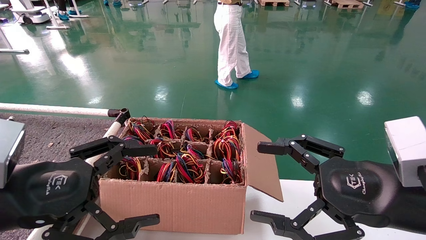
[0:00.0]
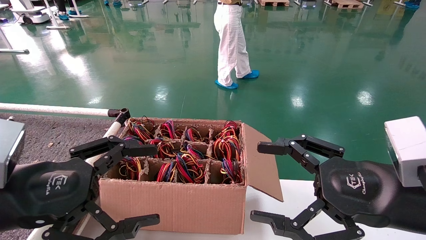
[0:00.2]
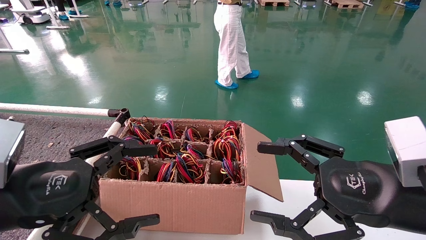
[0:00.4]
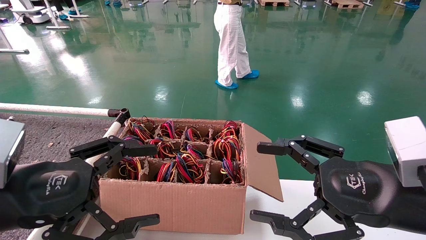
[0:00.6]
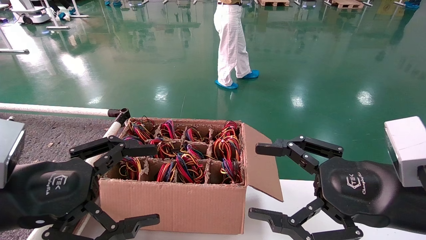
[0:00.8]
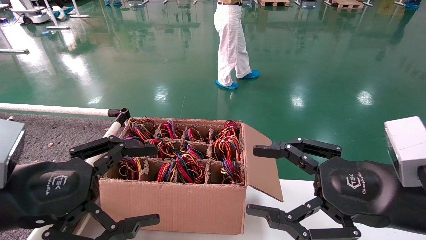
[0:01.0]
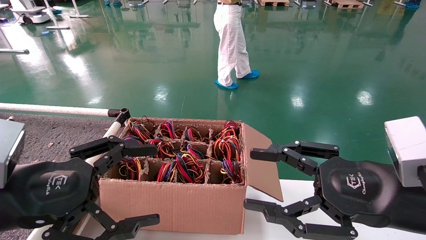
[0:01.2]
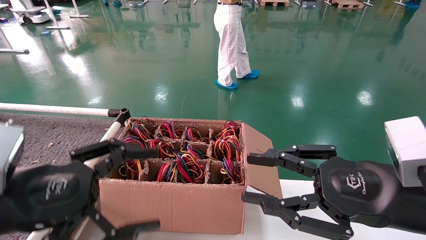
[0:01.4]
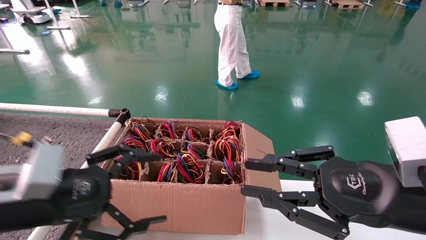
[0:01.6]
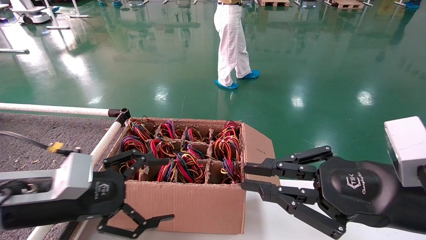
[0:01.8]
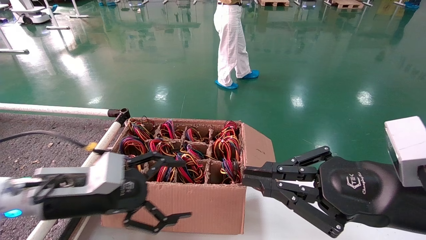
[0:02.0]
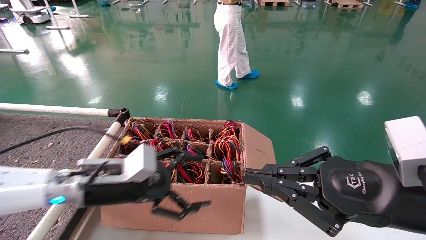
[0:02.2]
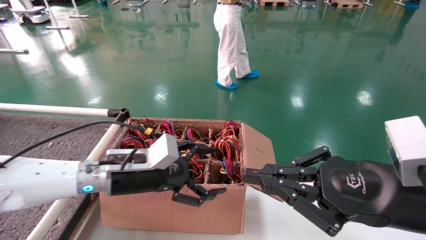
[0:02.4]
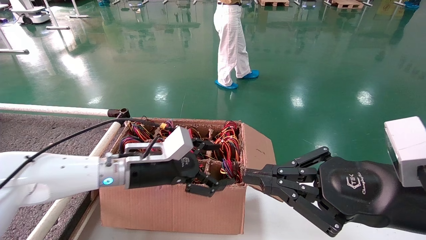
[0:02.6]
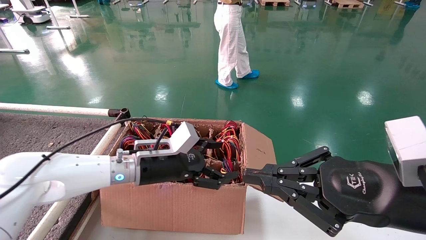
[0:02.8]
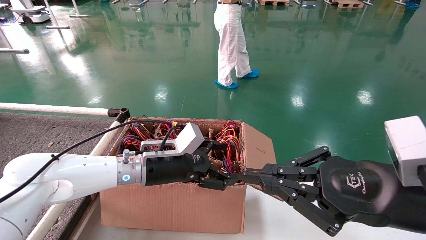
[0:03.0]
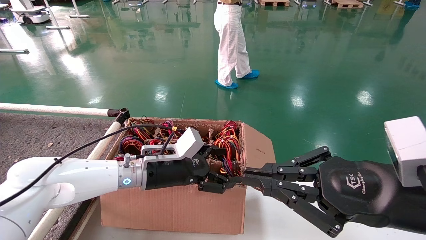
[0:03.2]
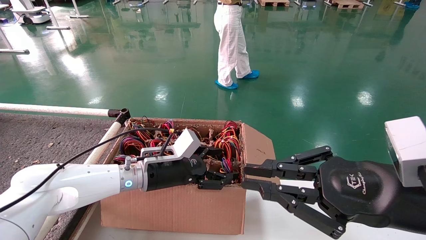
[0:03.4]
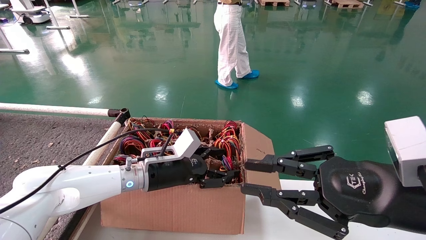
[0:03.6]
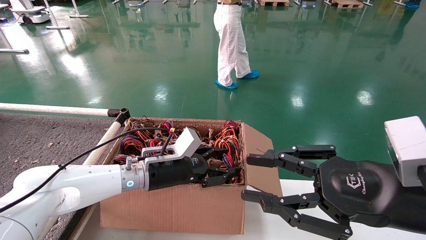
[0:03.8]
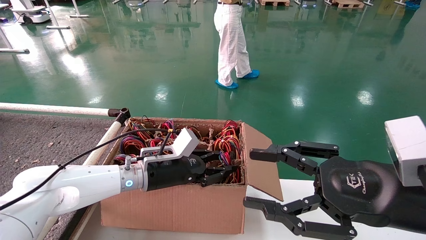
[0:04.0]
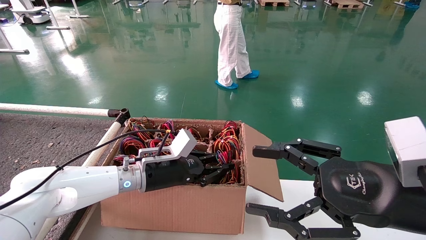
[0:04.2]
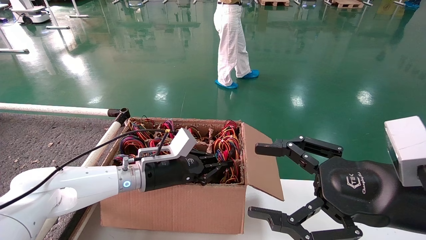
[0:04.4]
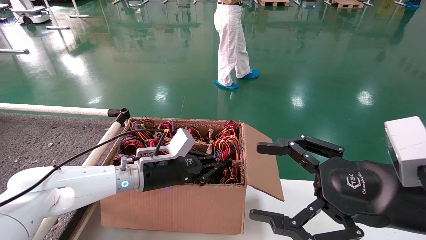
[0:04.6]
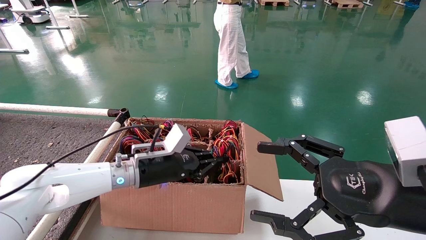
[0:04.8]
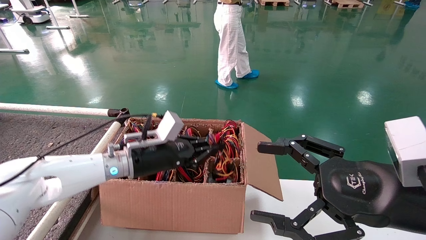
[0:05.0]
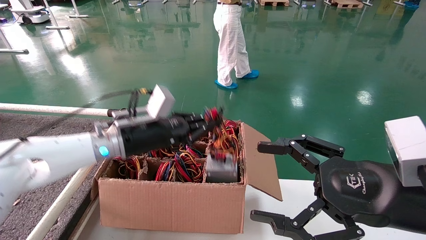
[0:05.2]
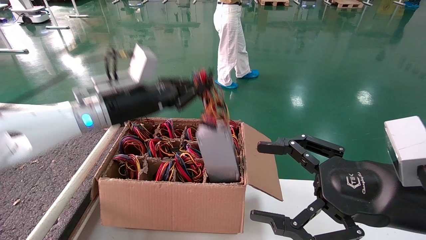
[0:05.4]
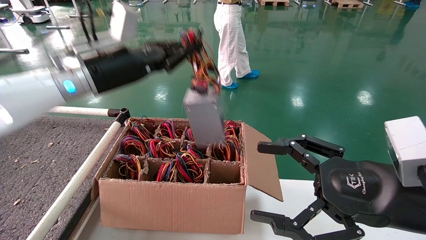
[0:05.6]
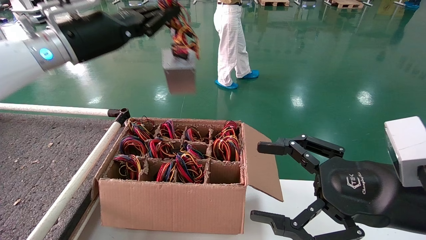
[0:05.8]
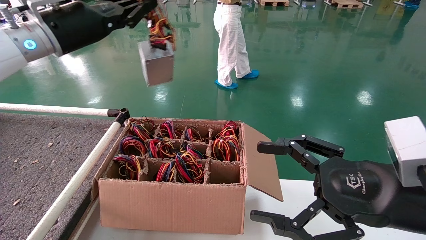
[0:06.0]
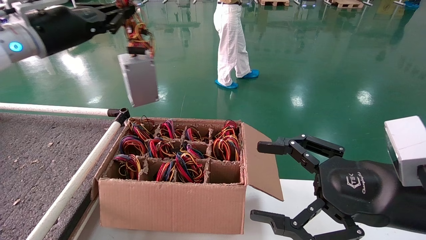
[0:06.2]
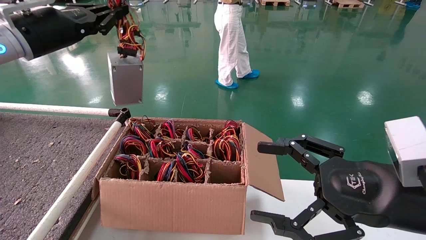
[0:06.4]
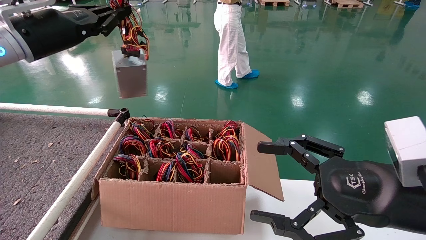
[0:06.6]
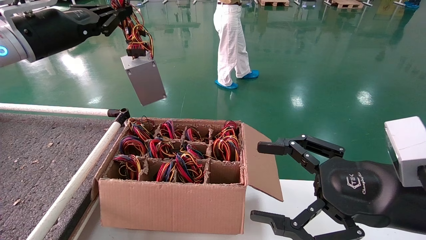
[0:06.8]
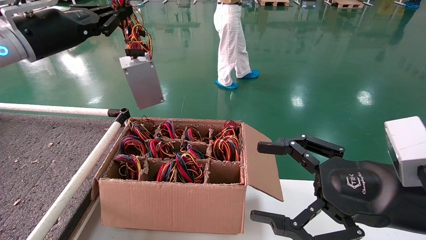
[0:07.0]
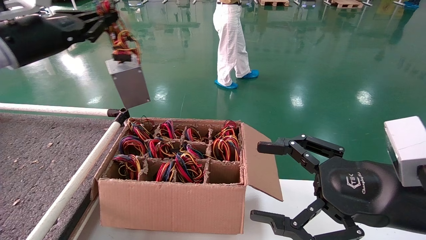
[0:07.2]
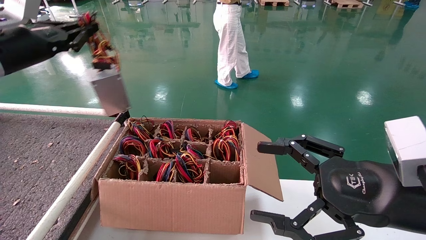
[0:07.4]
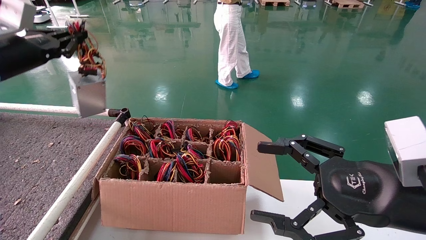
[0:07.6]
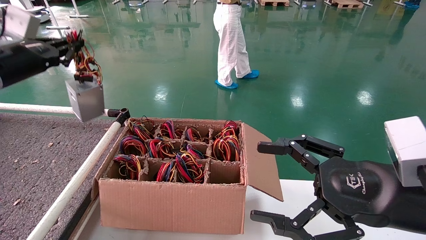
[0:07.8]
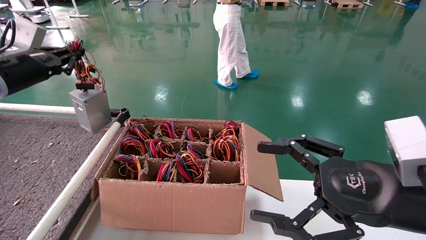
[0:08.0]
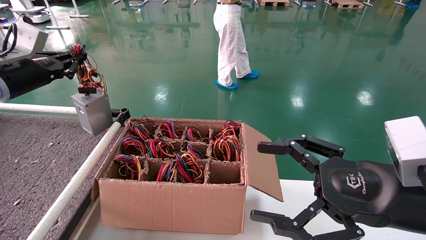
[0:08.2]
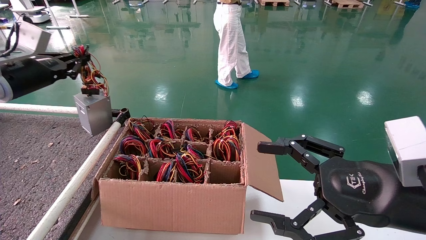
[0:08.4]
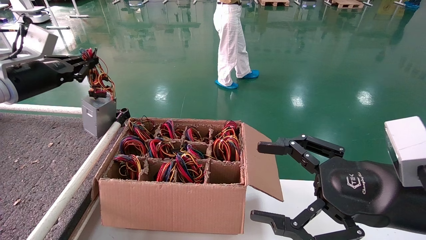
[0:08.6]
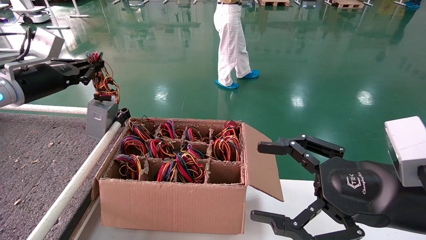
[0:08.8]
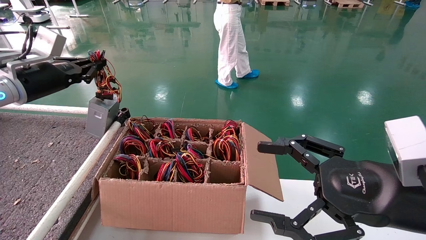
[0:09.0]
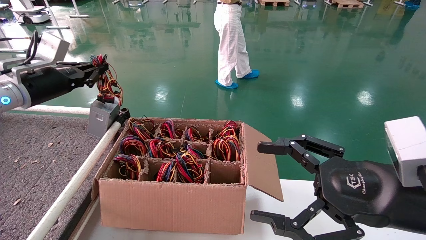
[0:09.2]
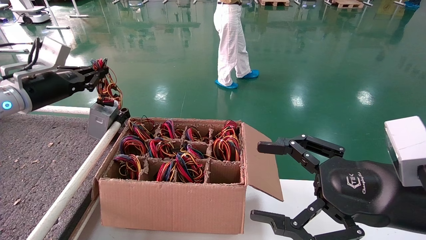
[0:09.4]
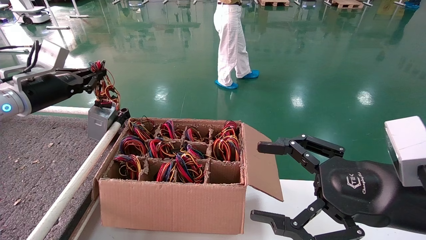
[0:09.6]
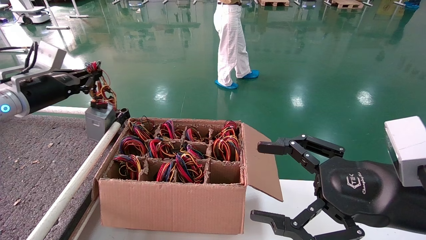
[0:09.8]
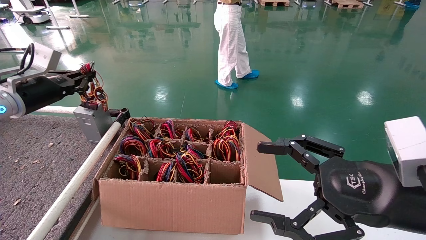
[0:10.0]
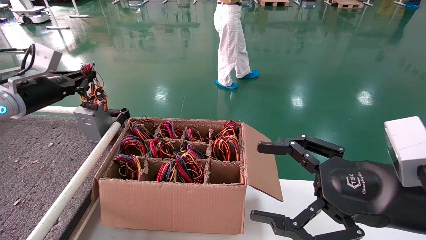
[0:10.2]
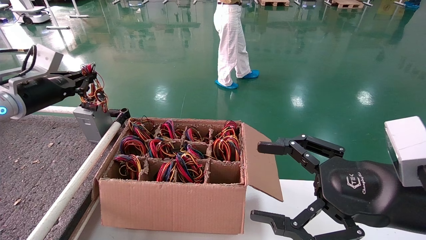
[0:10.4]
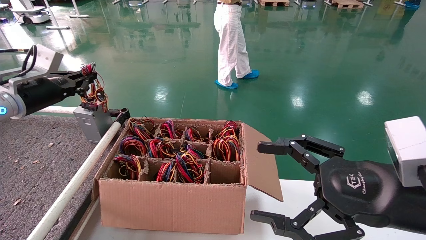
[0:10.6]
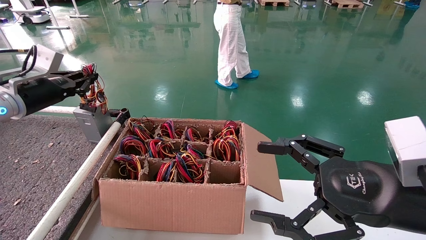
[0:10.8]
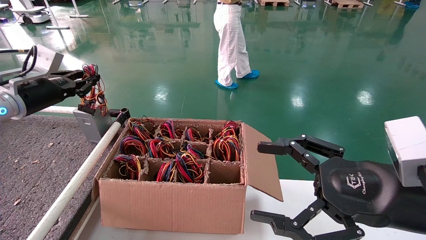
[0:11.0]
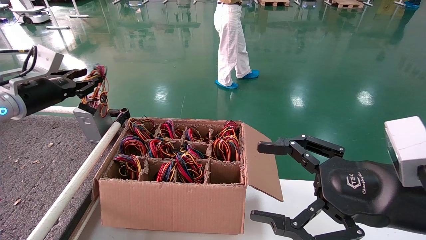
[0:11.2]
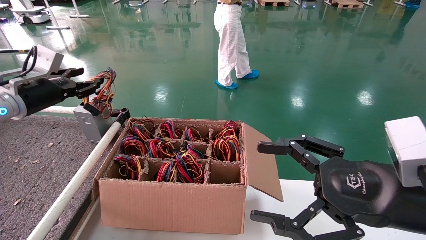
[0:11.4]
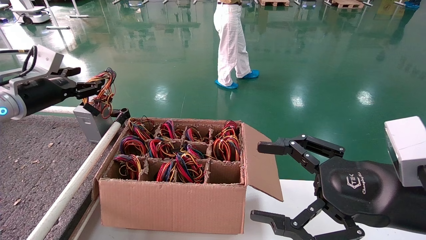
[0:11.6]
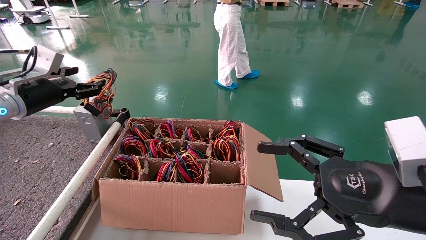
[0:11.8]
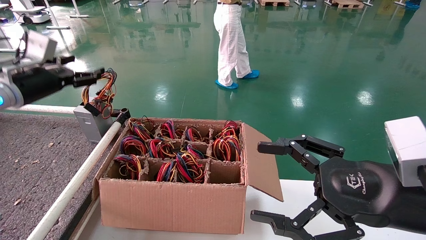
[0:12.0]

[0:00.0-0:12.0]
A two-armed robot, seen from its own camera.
Step, 0:01.8 to 0:04.8: Grab and lift the power supply from the large box.
Step, 0:05.0 to 0:11.6: Place the power supply on the operating table.
0:00.0 to 0:01.6: The right gripper closes up.
0:01.6 to 0:03.0: The left gripper goes roughly 20 cm forward and to the right. Meanwhile the right gripper closes its fingers.
0:03.0 to 0:04.4: The right gripper opens. Meanwhile the left gripper closes up.
0:04.4 to 0:06.0: The left gripper is displaced upward and to the left by about 30 cm.
0:06.0 to 0:07.6: The left gripper heads to the left, covering about 15 cm.
0:07.6 to 0:09.0: The left gripper ends up about 5 cm from where it was.
0:09.0 to 0:10.4: The grippers make only small movements.
0:10.4 to 0:12.0: The left gripper opens up.

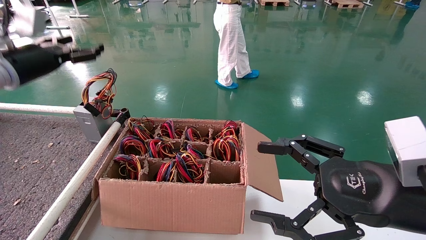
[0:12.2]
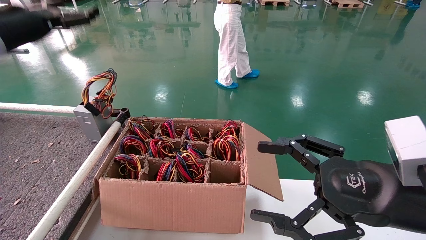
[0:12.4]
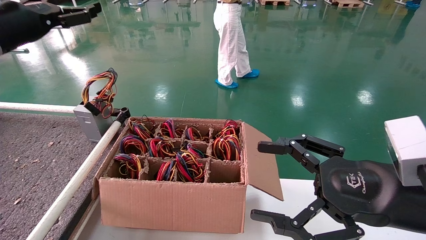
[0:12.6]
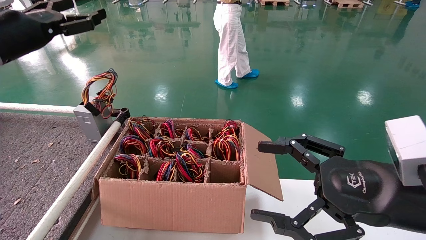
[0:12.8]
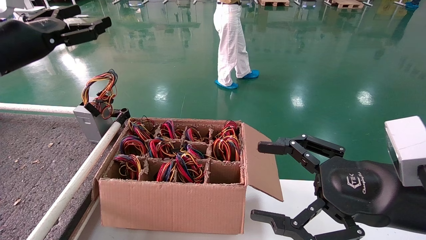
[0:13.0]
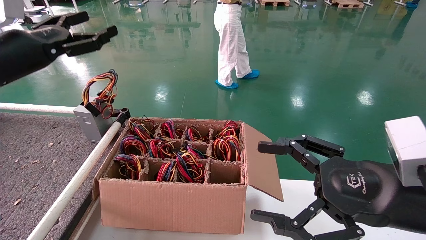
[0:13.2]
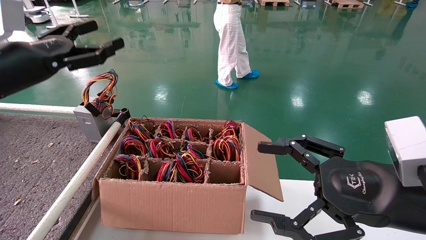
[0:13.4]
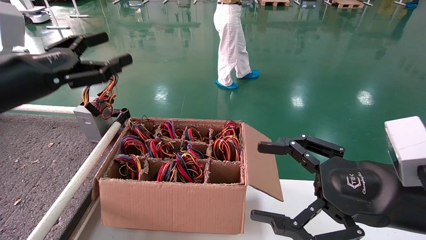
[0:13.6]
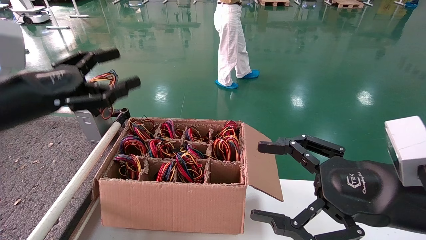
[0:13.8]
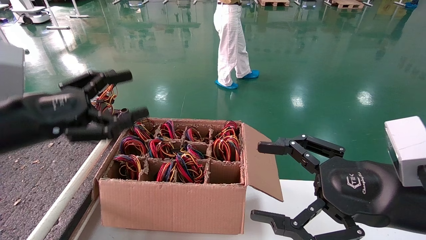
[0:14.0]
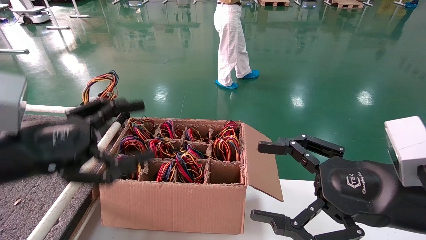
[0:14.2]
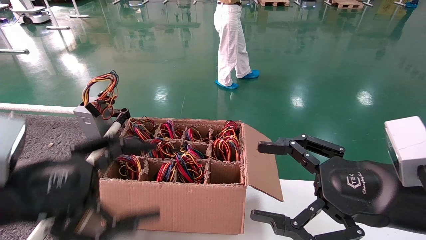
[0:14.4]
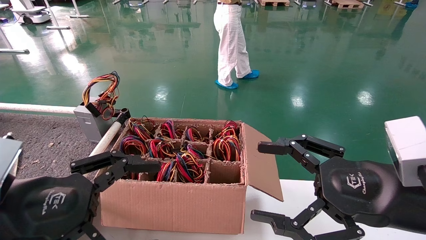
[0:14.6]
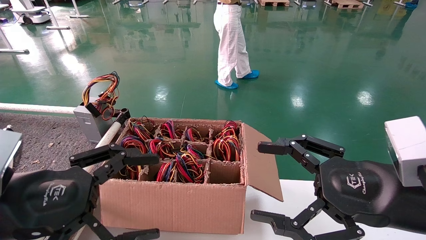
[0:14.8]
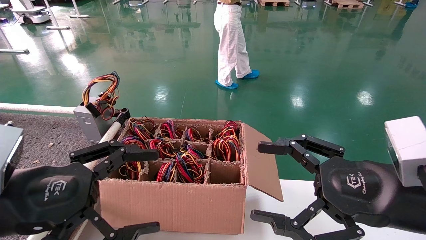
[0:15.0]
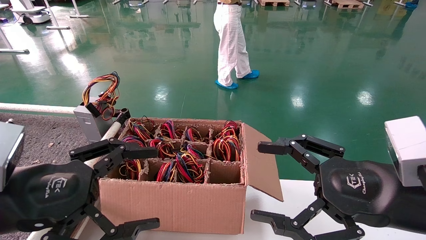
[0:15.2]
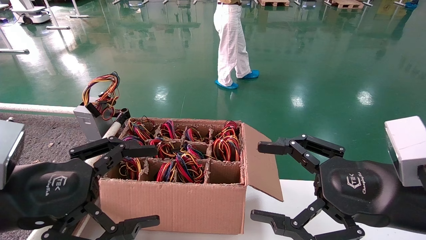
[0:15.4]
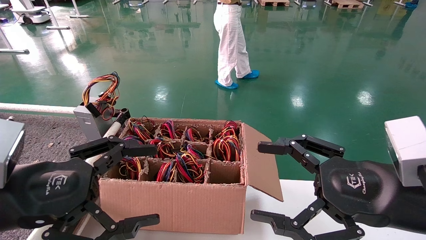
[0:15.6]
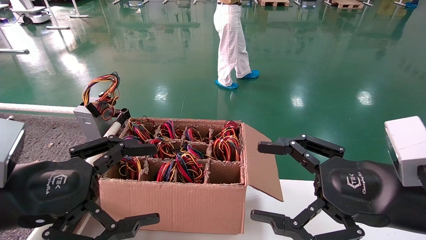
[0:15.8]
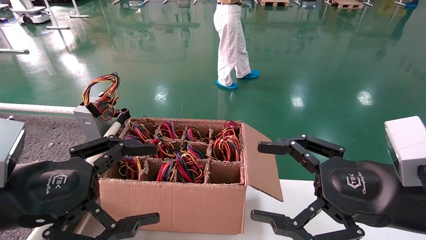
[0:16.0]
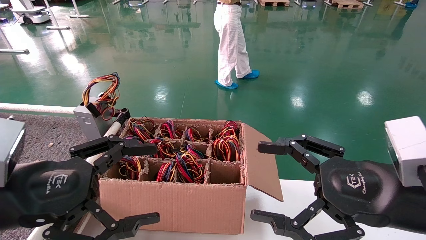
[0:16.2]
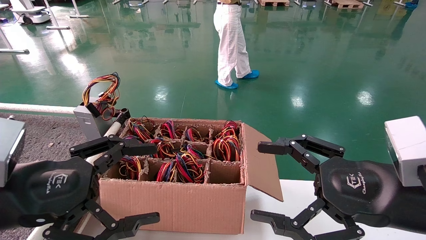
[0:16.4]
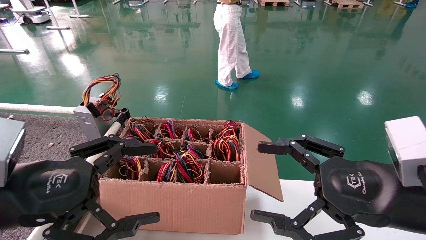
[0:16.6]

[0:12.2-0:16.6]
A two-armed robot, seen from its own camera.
0:12.2 to 0:13.6: The left gripper travels backward and to the right by approximately 10 cm.
0:13.6 to 0:15.2: The left gripper moves backward, downward and to the right, approximately 15 cm.
0:15.2 to 0:16.6: Neither gripper changes place.
